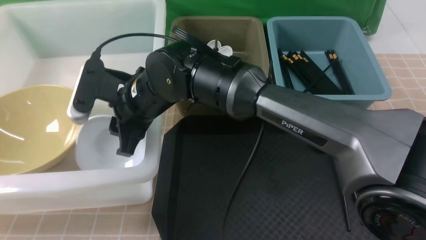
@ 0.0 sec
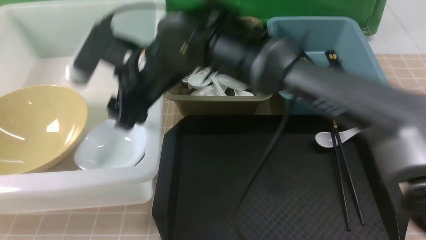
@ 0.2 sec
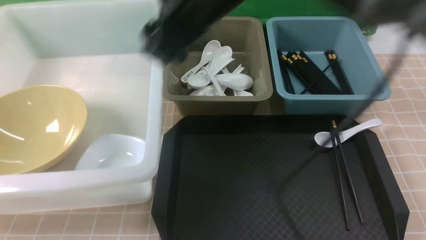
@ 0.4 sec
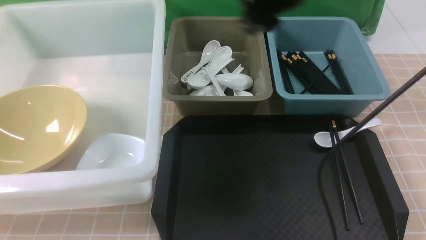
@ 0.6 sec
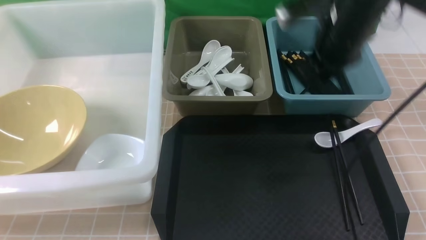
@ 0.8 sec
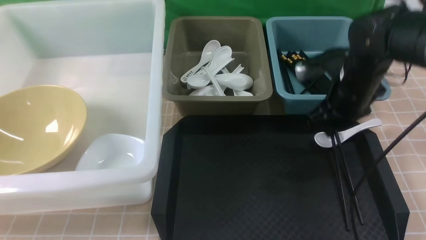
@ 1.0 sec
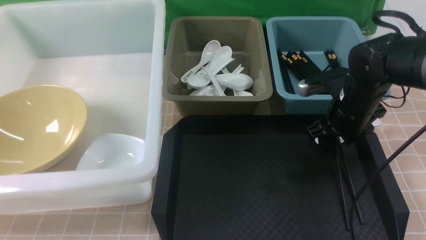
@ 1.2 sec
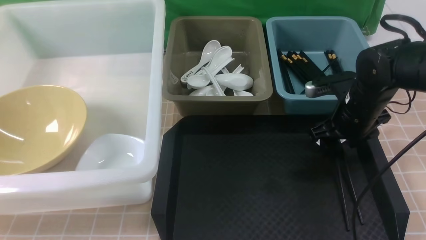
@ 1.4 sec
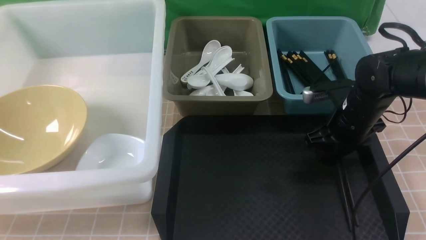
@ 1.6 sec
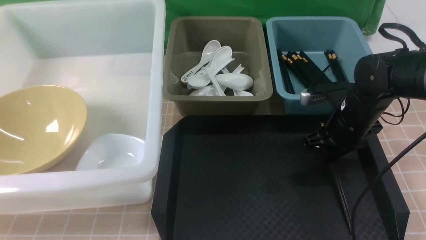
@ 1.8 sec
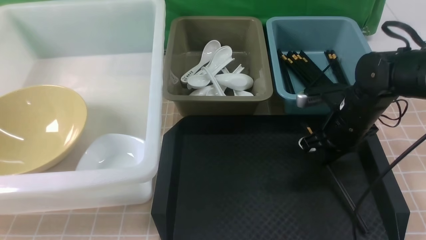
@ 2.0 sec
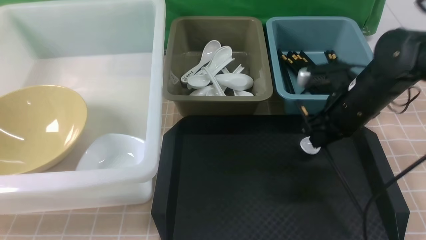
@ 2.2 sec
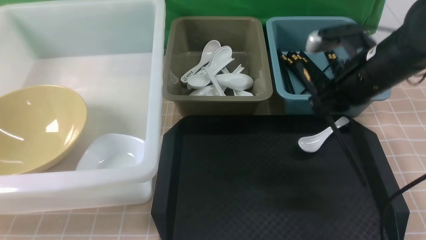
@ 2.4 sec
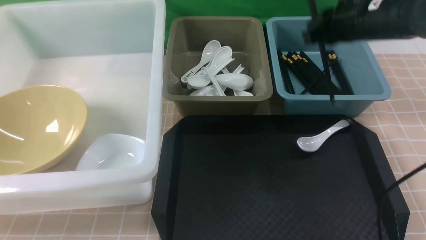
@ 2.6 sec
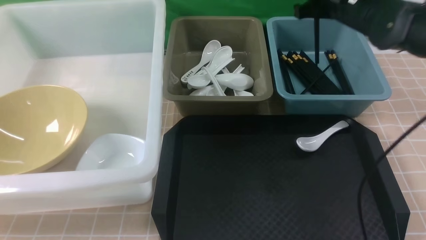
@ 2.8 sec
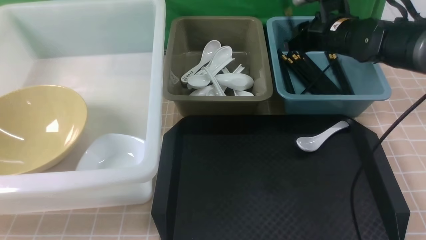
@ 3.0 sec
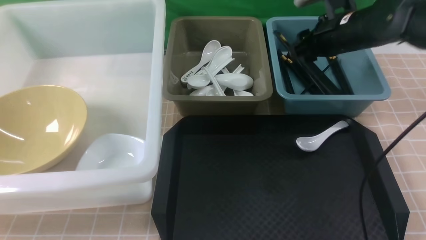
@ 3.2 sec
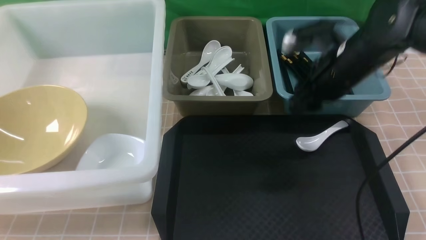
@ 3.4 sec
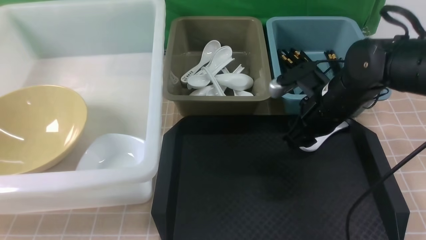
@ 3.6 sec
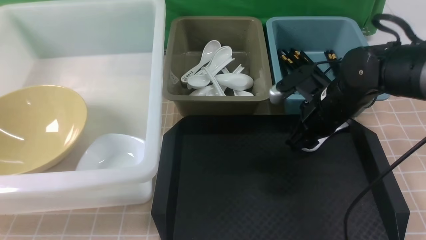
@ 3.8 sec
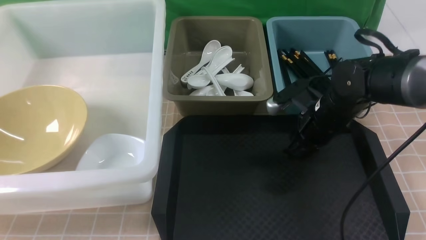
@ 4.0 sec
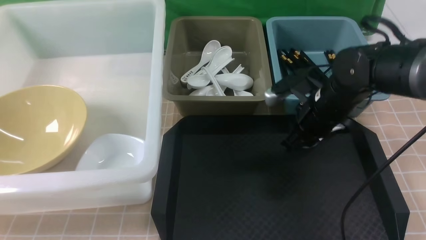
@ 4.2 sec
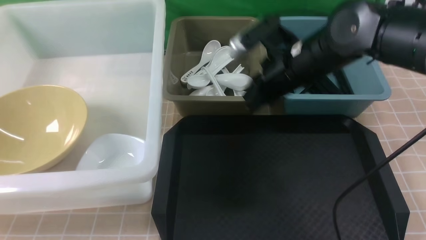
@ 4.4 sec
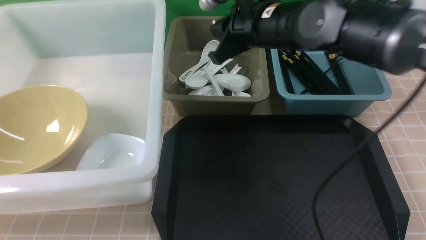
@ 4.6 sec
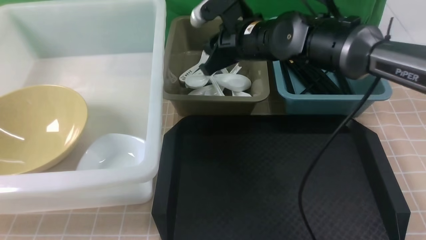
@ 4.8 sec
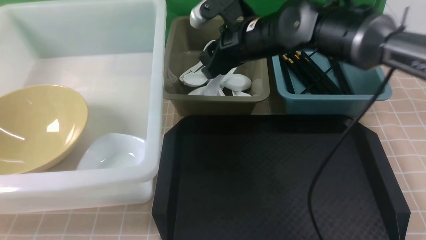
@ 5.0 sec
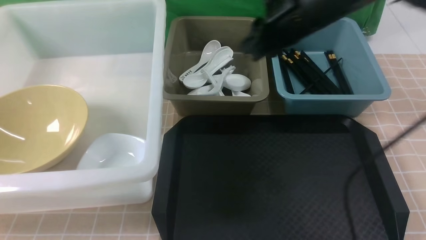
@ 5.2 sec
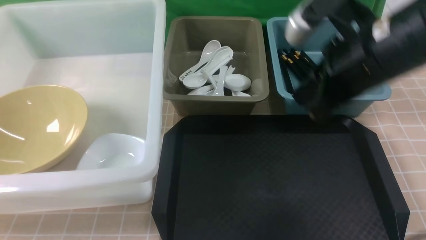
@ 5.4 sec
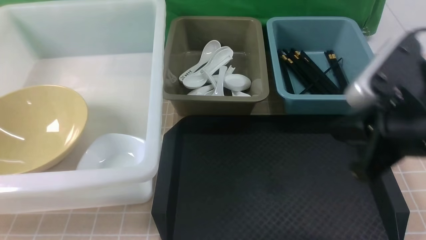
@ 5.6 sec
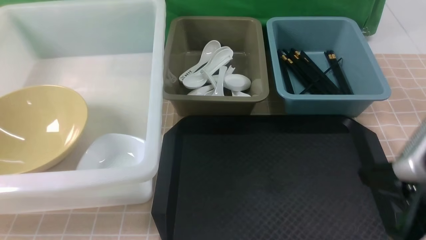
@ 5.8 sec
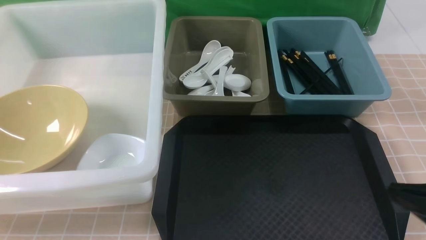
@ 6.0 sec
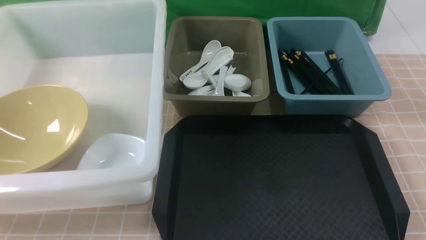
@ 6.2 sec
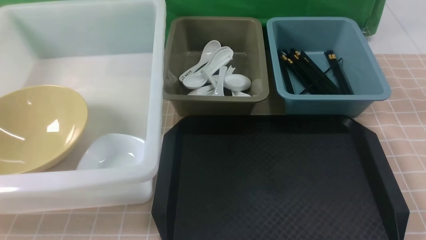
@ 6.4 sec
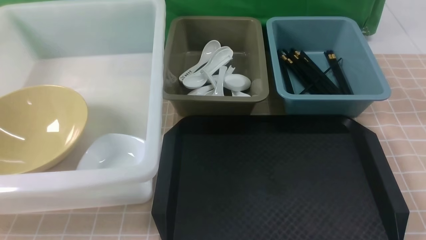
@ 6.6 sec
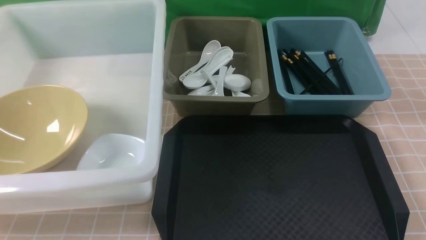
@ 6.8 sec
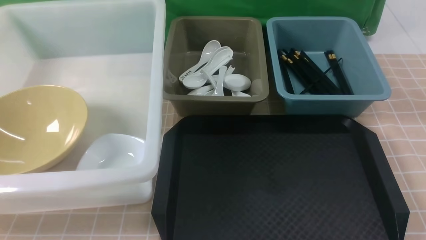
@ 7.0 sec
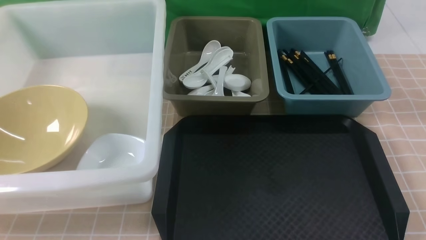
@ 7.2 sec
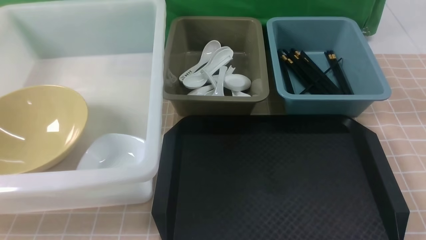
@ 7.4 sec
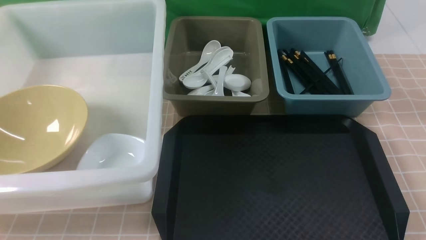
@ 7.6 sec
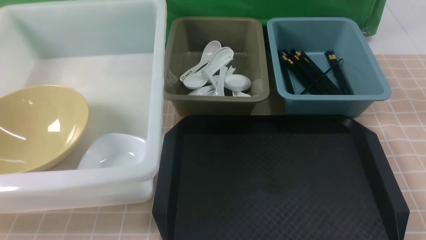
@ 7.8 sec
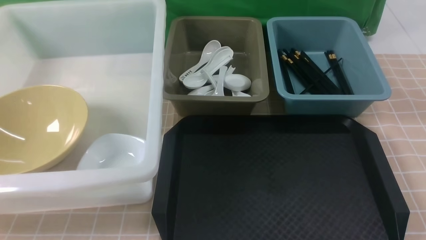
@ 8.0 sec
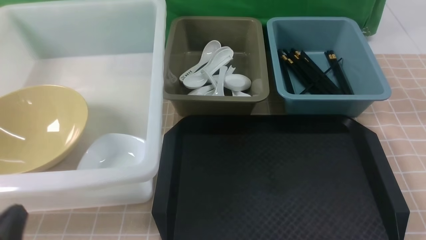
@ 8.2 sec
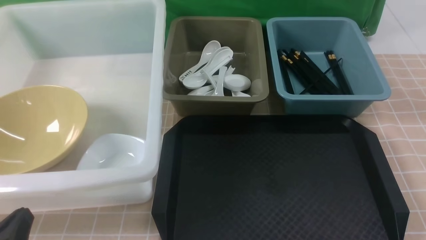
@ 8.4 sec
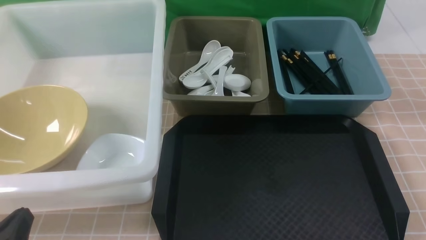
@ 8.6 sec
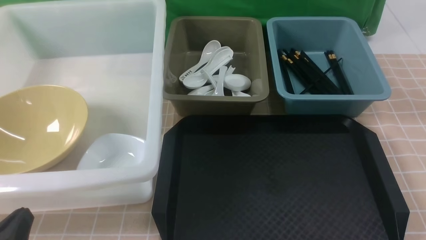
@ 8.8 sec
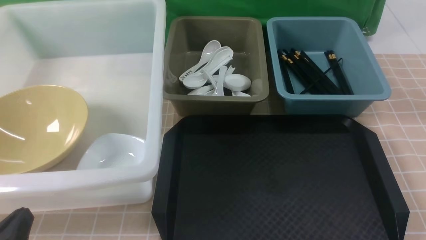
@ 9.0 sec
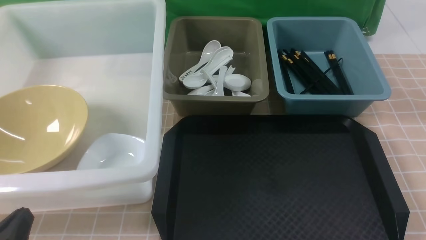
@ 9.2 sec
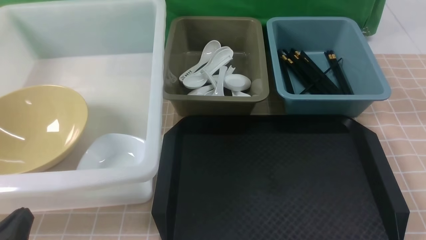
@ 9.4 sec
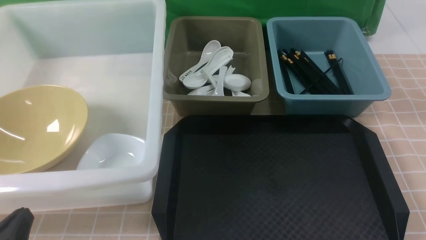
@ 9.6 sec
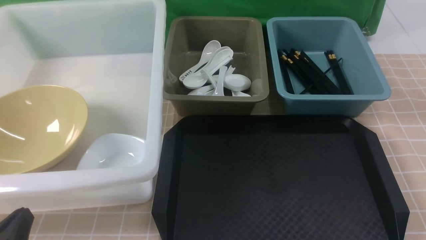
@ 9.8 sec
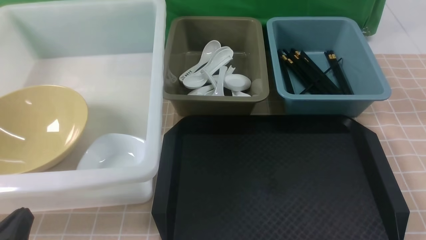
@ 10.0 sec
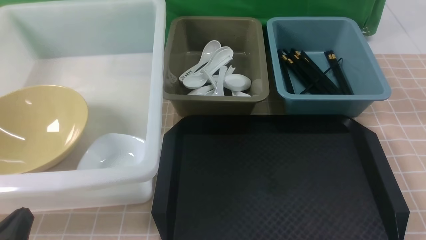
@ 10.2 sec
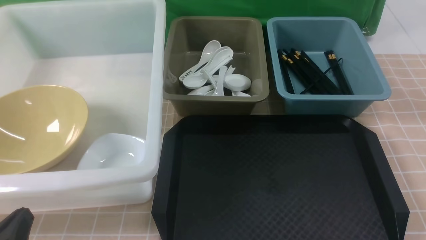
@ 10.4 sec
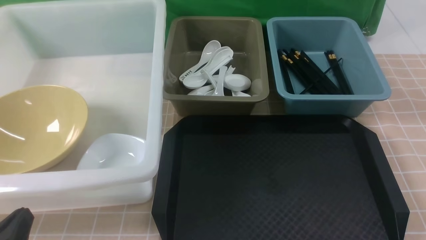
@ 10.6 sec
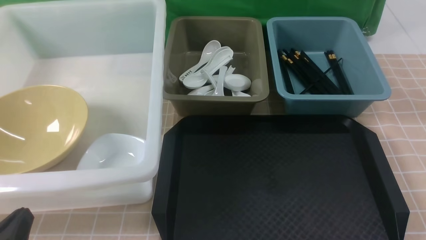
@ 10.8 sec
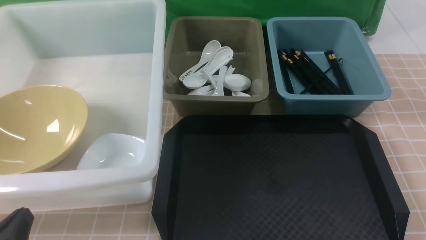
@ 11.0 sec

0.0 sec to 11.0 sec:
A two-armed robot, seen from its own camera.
Task of the whole recording: on brown table put chopsticks spoon bowls plates into blue grey white boxes.
Step, 0.2 sec to 2.2 sec: use the right arm to grab the chopsticks.
Step, 2.4 sec to 3.6 sec: use the right arm to put the chopsticks into the small storage box on the right.
Step, 3.8 sec to 4.2 sec: use the right arm to grab the soup spoon in the middle.
Step, 4.4 sec to 5.2 sec: use the right arm to put the soup spoon into the small storage box in the middle.
0.0 sec to 1.6 sec: The right gripper moves to the right, roughly 30 cm.
1.6 sec to 3.2 sec: The right gripper goes roughly 10 cm upward and forward, and closes and opens again.
3.2 sec to 4.8 sec: The right gripper goes some 15 cm to the left.
4.8 sec to 6.2 sec: The right gripper is displaced backward and to the right by approximately 40 cm, and closes.
7.8 sec to 9.4 sec: The left gripper travels downward by roughly 5 cm.
9.4 sec to 11.0 sec: Neither gripper changes place.
